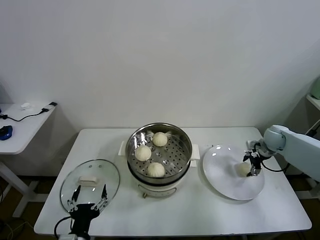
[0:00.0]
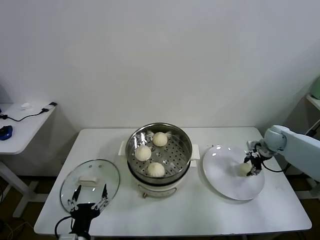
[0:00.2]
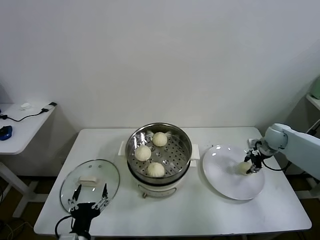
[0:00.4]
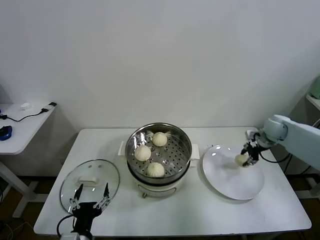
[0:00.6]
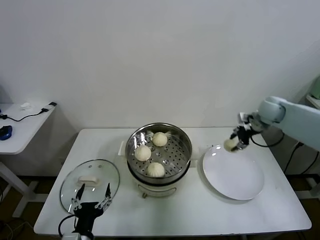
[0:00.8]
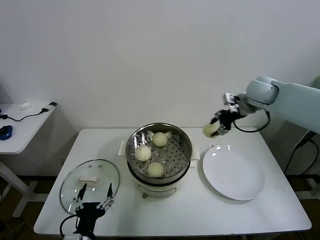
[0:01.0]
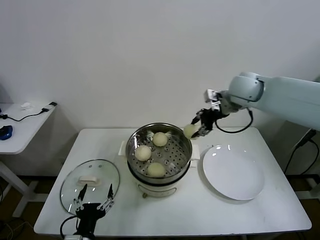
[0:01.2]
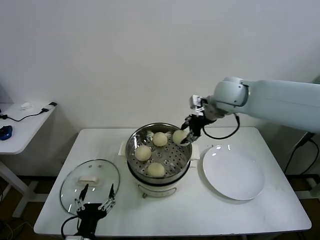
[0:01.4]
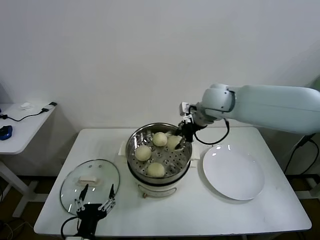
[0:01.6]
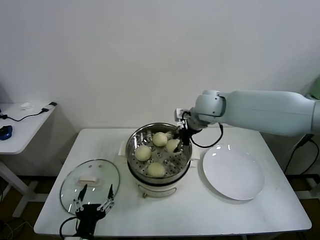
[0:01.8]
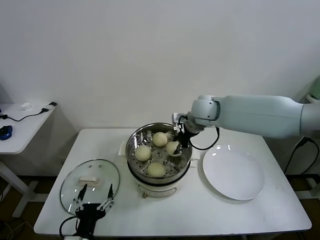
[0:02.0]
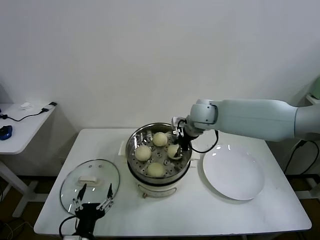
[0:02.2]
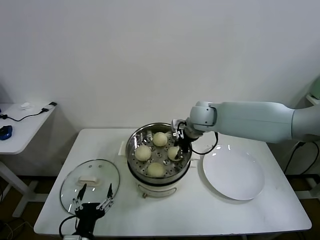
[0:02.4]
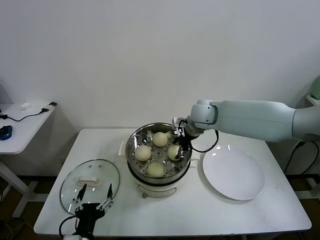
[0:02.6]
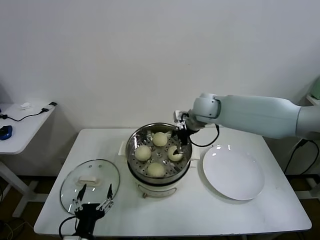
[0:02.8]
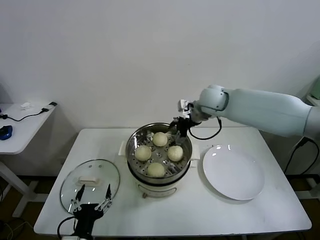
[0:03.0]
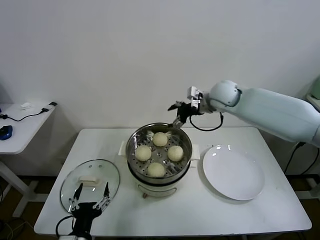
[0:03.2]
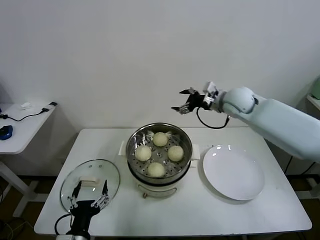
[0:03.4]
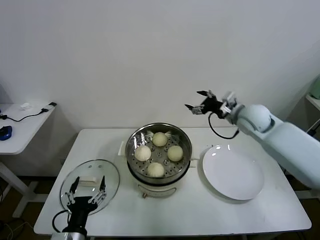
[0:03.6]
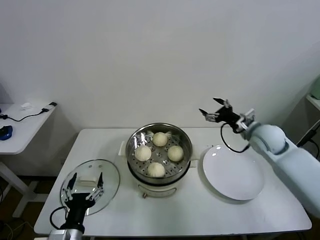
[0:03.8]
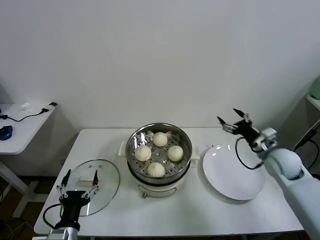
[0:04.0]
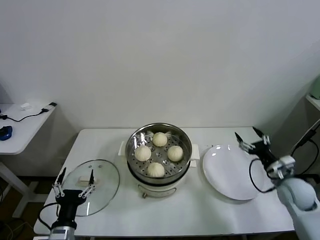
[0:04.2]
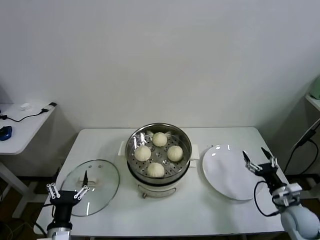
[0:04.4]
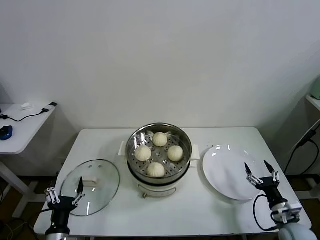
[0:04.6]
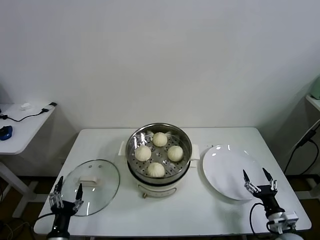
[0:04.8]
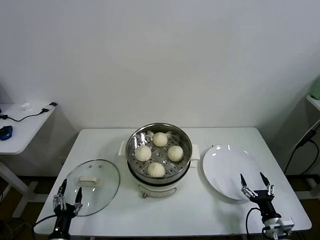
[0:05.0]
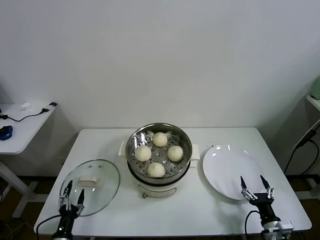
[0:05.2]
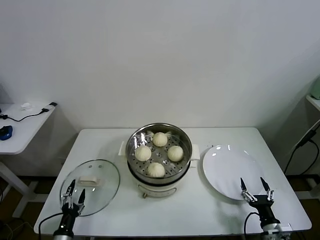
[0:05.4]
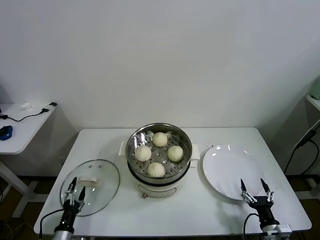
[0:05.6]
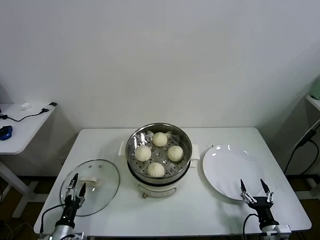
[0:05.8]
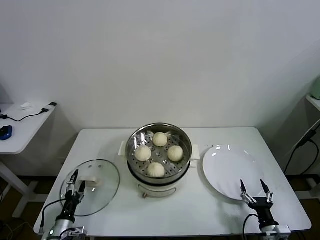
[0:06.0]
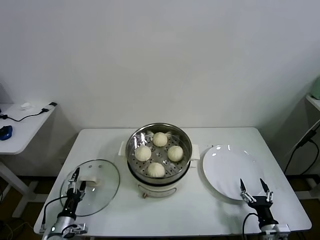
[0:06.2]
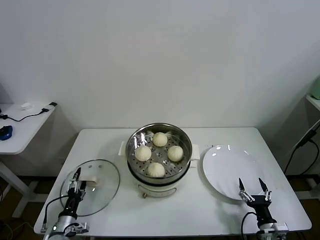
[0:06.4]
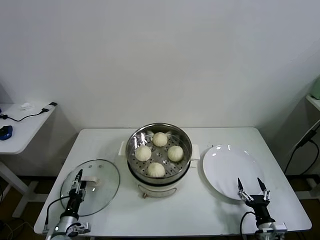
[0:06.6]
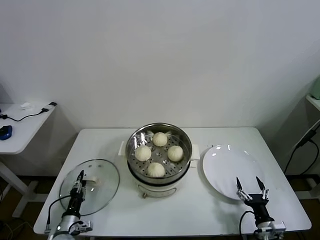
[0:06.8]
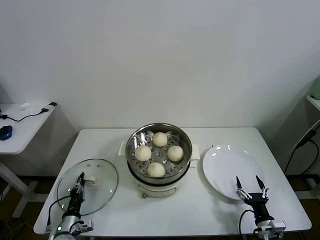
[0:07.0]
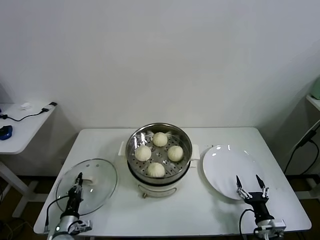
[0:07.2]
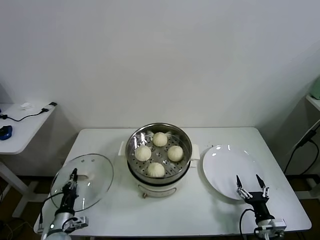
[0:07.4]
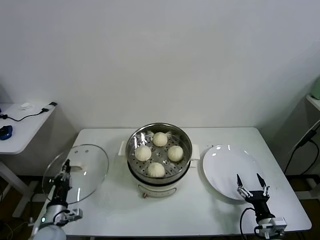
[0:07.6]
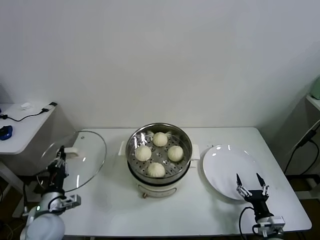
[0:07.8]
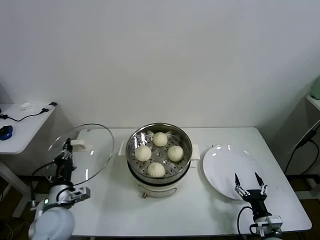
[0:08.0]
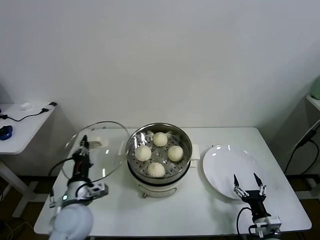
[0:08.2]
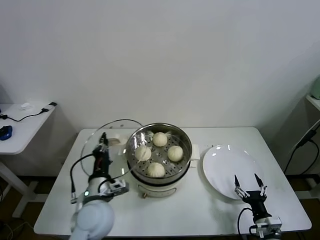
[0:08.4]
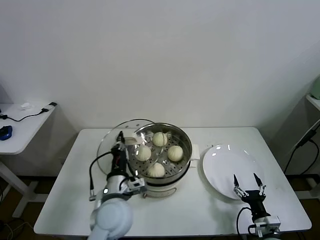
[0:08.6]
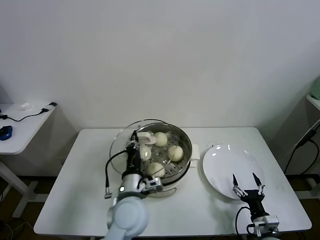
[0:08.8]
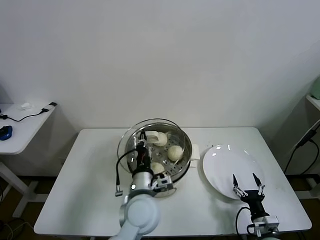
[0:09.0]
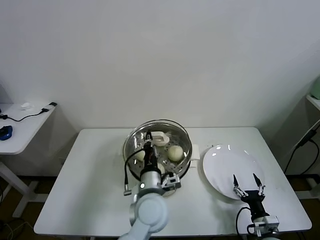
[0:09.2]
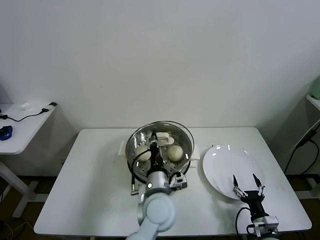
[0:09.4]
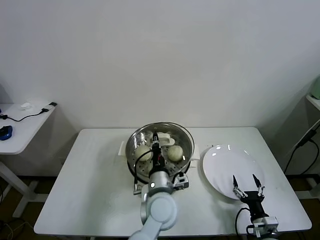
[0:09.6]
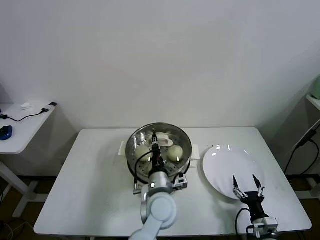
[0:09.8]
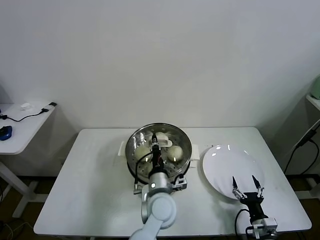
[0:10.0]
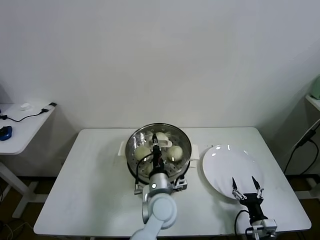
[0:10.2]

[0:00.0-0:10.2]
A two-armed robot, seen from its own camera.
Task of the whole recording: take steamed baozi put them in steamer.
Step, 0:00.4 to 0:02.6: Place the baozi on the steamer with right gripper.
Step, 0:02.8 to 0:07.0: Grasp the pot lid with left gripper.
0:00.0 to 0:01.4: The right gripper heads to the left and upward, covering some 35 cm, and closes up.
0:01.4 to 0:03.0: The right gripper travels downward by approximately 5 cm, and opens up.
0:03.0 to 0:04.4: The right gripper is displaced backward, to the right and downward by some 50 cm; the left gripper heads to the left, covering roughly 5 cm.
0:04.4 to 0:05.8: The left gripper shifts roughly 15 cm downward and to the left. The right gripper shifts approximately 15 cm backward, downward and to the left.
0:05.8 to 0:07.2: The left gripper closes its fingers.
0:07.2 to 0:08.8: The left gripper goes approximately 35 cm to the right and upward.
0:08.8 to 0:10.2: The left gripper is displaced to the right by approximately 10 cm.

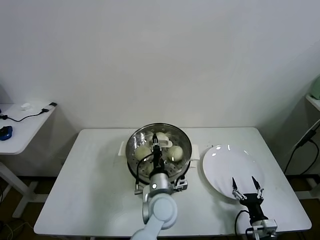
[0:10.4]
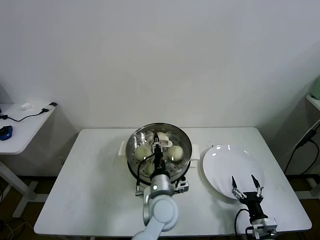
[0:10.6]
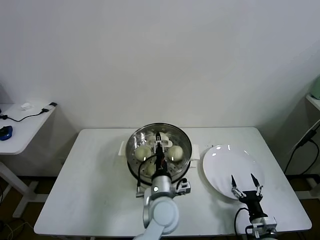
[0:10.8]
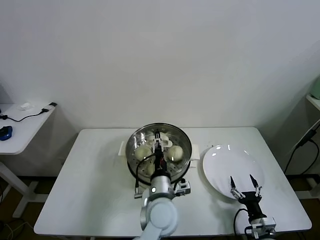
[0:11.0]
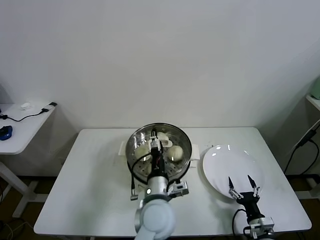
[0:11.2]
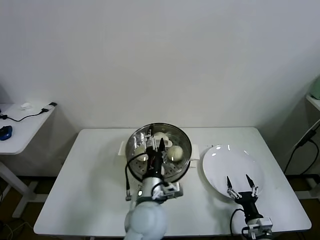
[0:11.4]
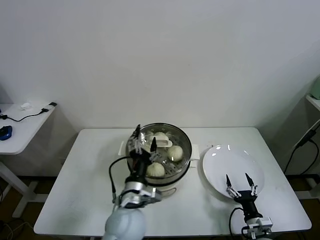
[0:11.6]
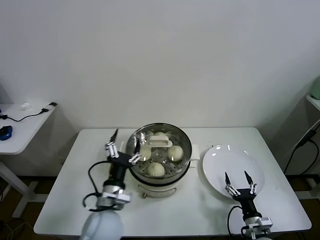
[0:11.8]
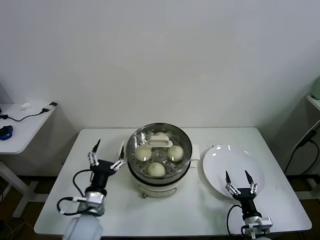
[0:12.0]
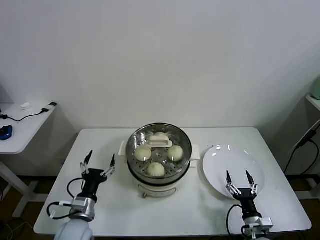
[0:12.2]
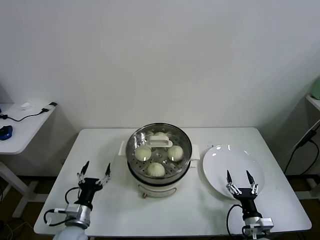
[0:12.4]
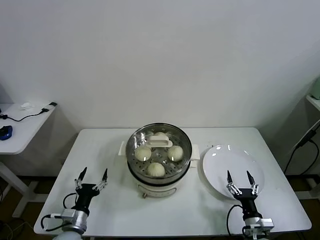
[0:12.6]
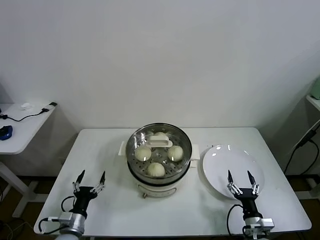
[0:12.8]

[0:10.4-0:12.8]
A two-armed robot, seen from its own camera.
Task of the whole recording: take steamed baozi put them in steamer.
0:10.4 to 0:11.6: The left gripper shifts about 5 cm to the left, and opens up.
0:11.6 to 0:12.8: The left gripper goes roughly 30 cm to the left and downward.

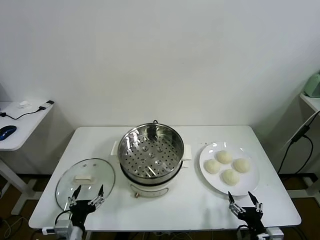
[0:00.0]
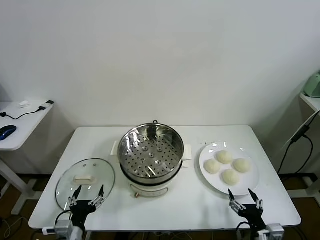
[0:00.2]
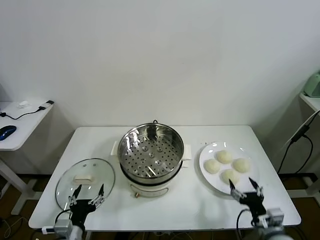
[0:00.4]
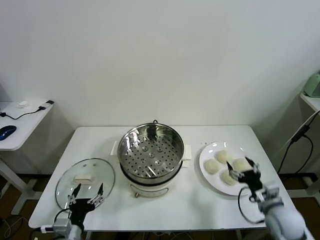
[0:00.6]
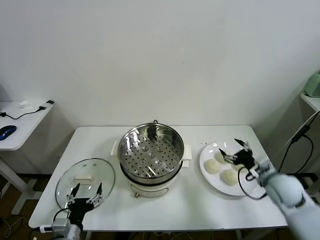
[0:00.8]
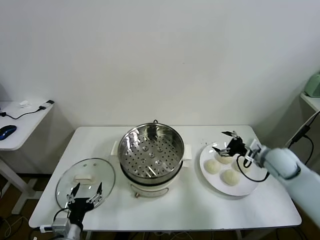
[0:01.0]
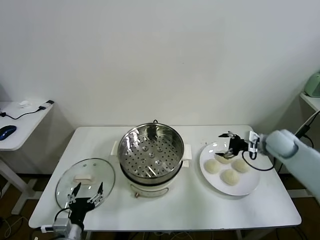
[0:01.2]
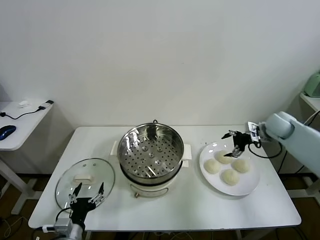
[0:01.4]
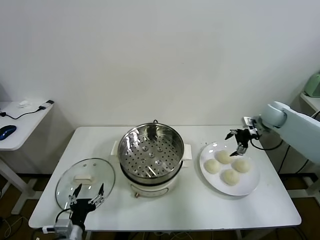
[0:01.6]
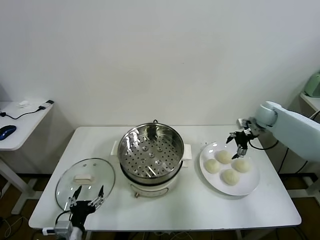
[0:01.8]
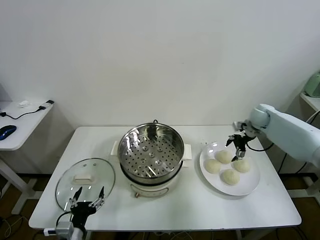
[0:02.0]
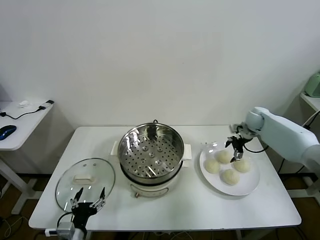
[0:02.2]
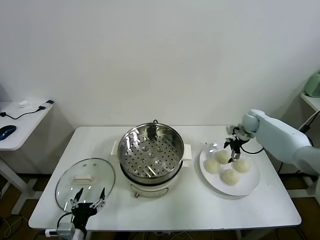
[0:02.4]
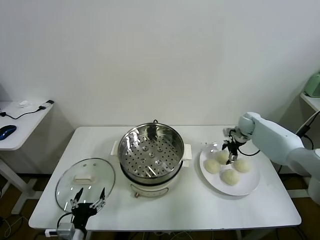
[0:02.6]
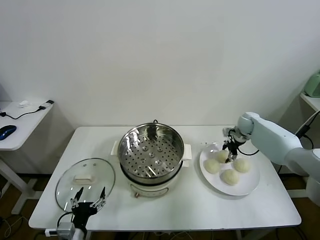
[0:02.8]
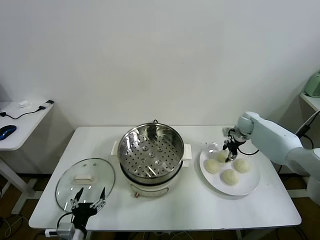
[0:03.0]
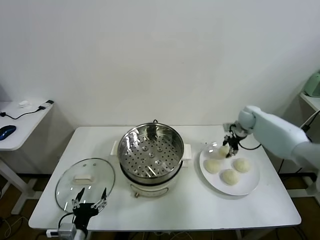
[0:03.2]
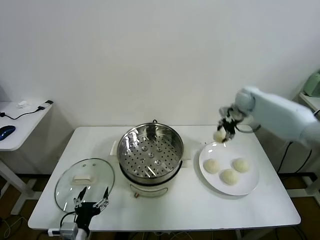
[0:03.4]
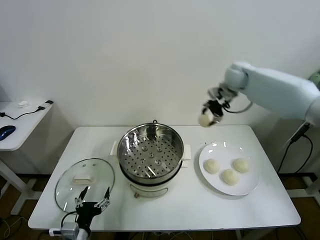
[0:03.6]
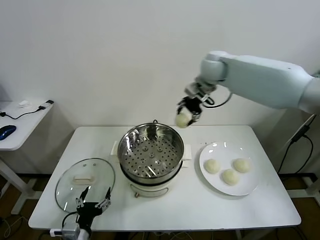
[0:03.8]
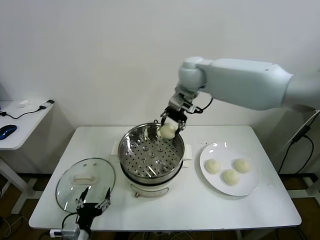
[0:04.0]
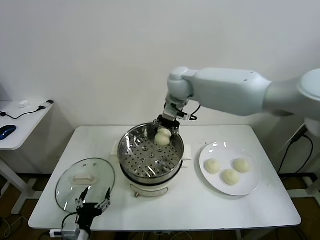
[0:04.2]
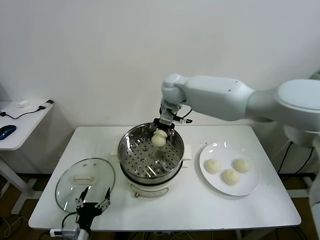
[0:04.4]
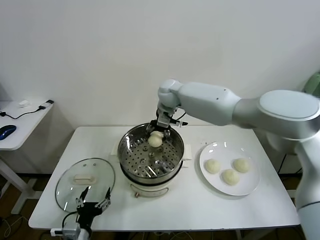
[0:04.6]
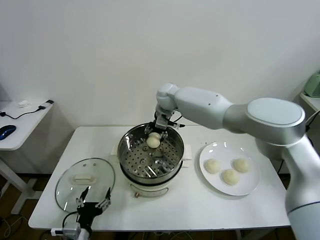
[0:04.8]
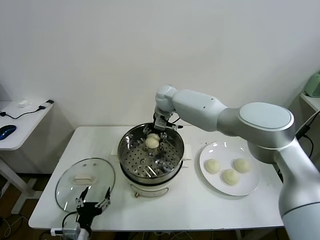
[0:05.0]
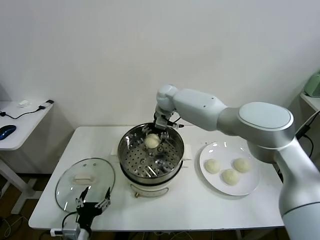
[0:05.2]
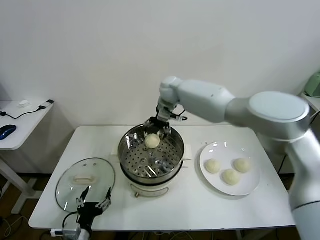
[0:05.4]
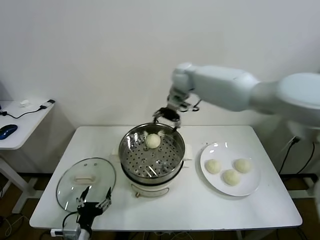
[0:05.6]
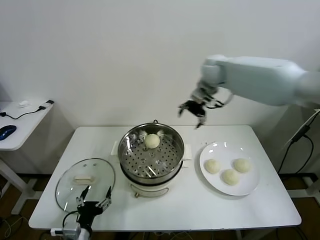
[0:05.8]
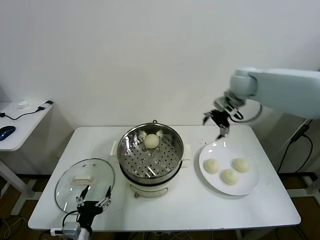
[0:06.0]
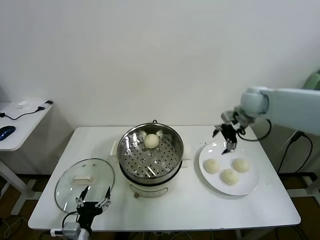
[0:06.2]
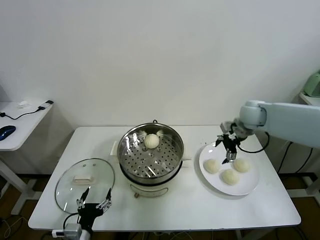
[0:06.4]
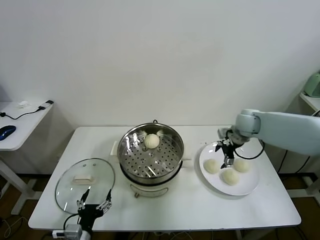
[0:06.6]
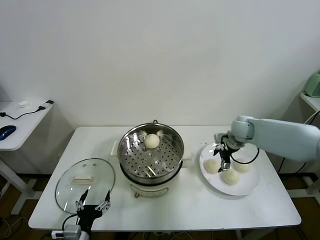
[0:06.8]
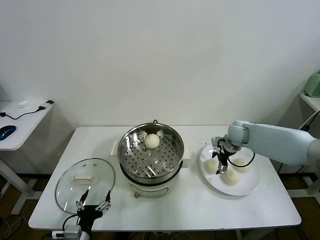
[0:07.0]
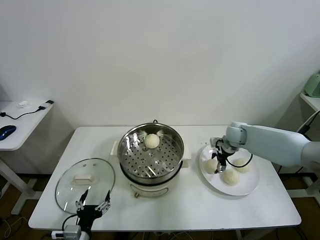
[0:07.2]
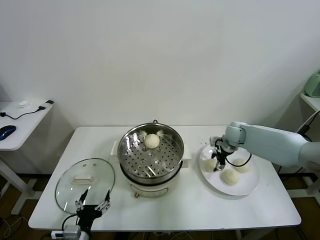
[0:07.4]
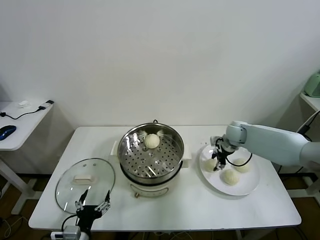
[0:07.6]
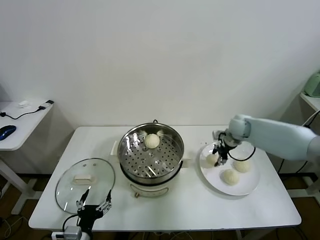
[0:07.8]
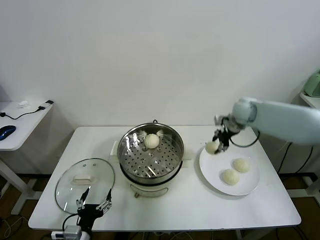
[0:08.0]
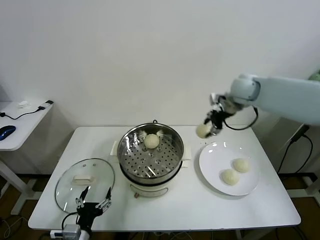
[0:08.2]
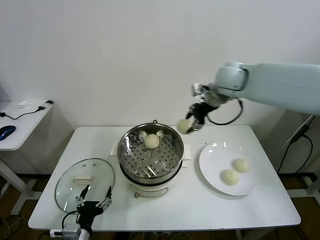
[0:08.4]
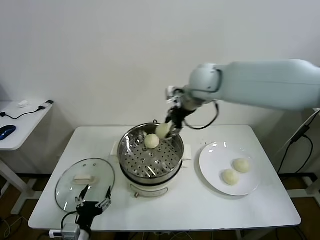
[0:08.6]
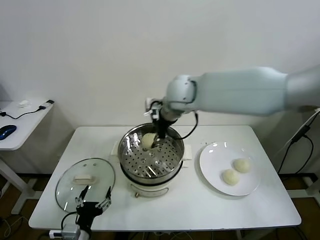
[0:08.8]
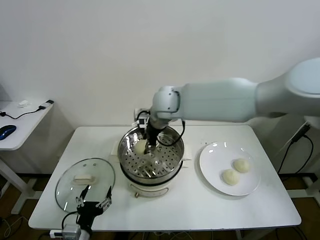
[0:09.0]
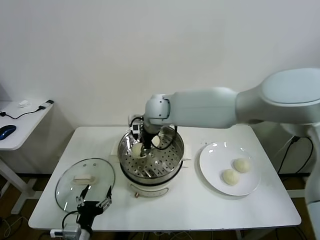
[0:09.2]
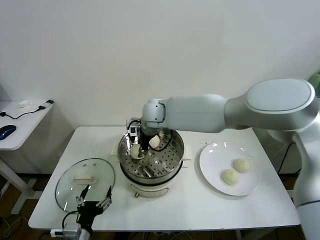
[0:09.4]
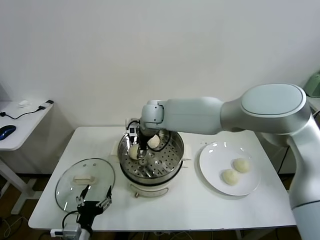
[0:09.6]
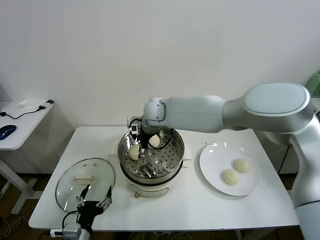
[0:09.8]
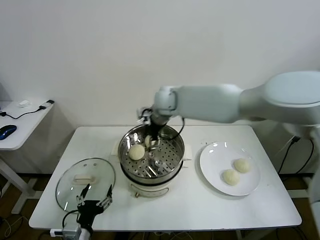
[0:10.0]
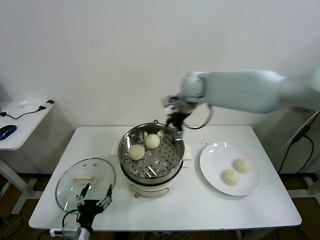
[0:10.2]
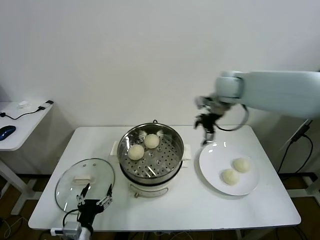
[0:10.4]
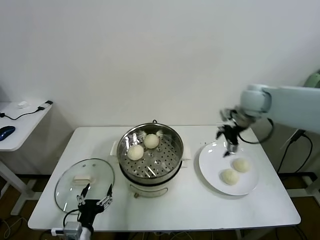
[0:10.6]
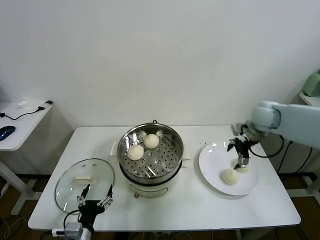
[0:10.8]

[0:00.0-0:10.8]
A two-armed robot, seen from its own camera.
Task of the whole recording: take steamed baozi put them in steamer.
Step, 0:00.0 to 0:02.8: Grasp the baozi in the plate with right gripper.
Step, 0:03.0 to 0:05.2: Place the baozi on the steamer with right gripper.
Step, 0:05.4 to 0:07.4: Grasp the baozi in the plate with right gripper.
Step, 0:07.6 to 0:09.6: Place the baozi on the steamer with right gripper.
0:01.6 to 0:03.0: The right gripper moves downward, about 5 cm, and closes up.
0:03.0 to 0:04.6: The right gripper heads to the left, covering some 35 cm.
0:04.6 to 0:06.2: The right gripper is displaced to the right by some 30 cm, and opens.
0:06.2 to 0:07.8: The right gripper travels downward by roughly 5 cm, and closes up.
0:07.8 to 0:09.2: The right gripper moves to the left, about 35 cm.
0:09.2 to 0:10.8: The right gripper heads to the right, covering about 35 cm, and opens its fingers.
